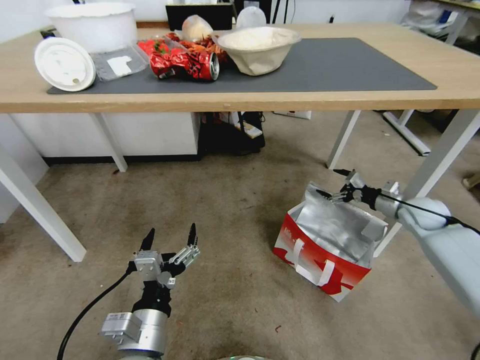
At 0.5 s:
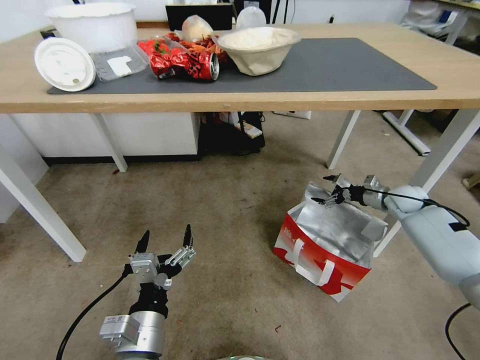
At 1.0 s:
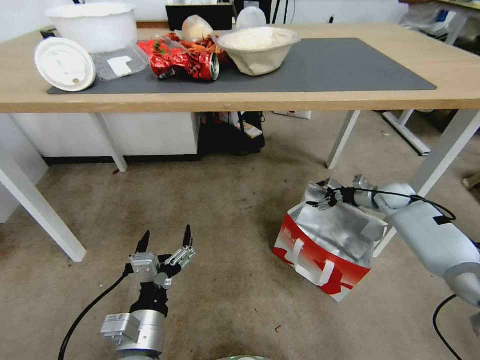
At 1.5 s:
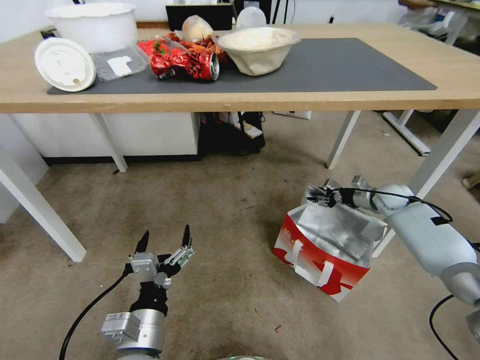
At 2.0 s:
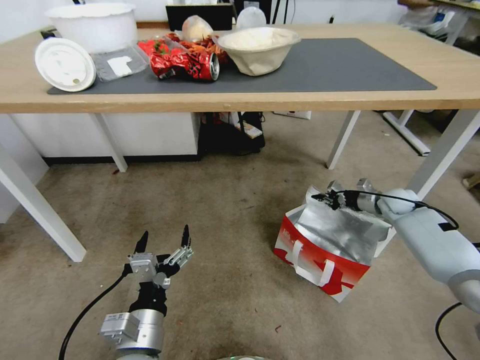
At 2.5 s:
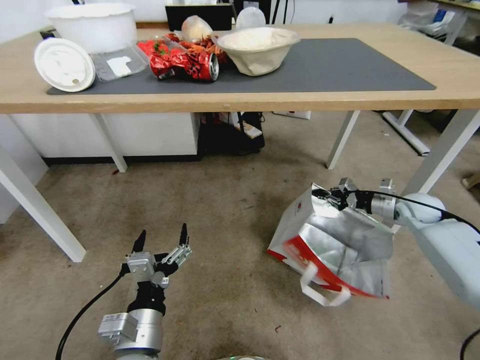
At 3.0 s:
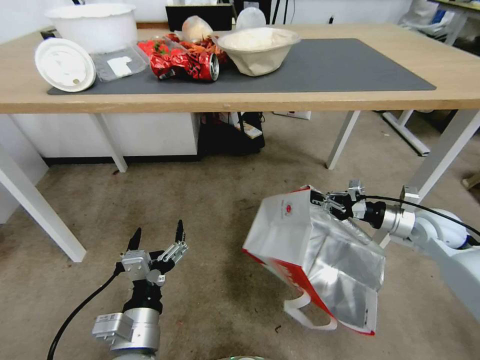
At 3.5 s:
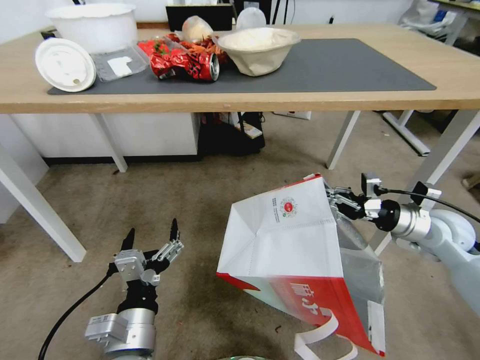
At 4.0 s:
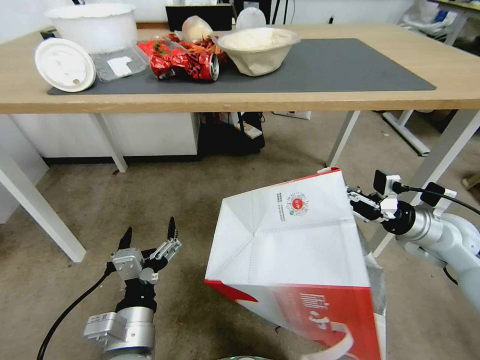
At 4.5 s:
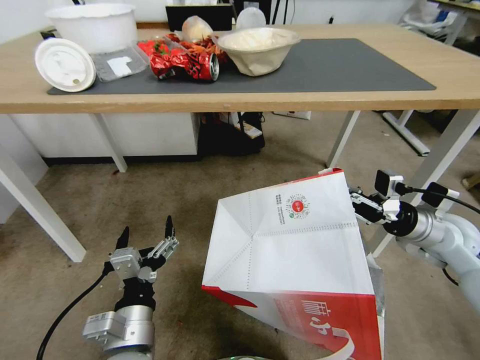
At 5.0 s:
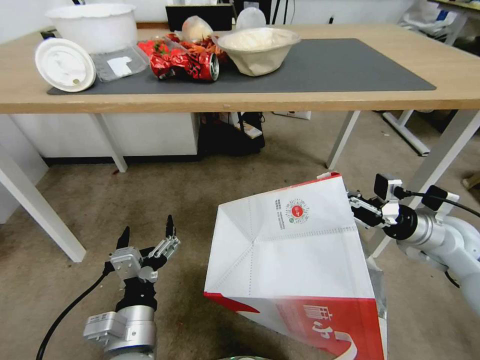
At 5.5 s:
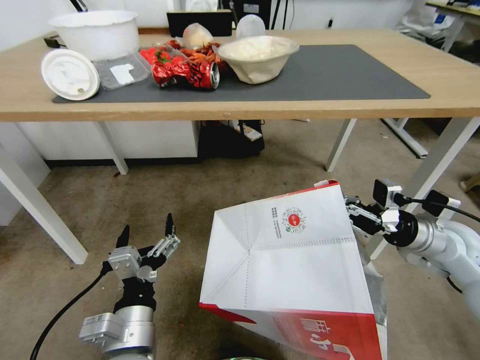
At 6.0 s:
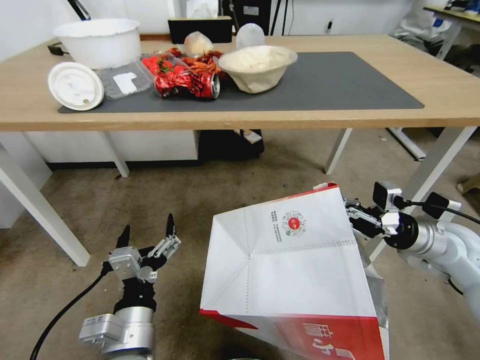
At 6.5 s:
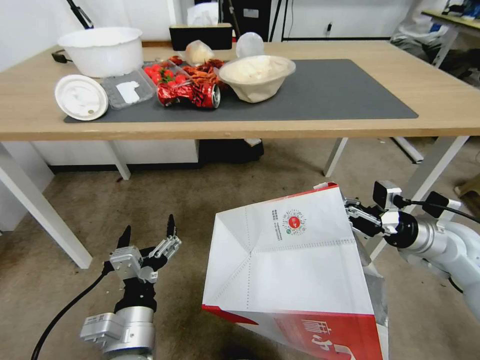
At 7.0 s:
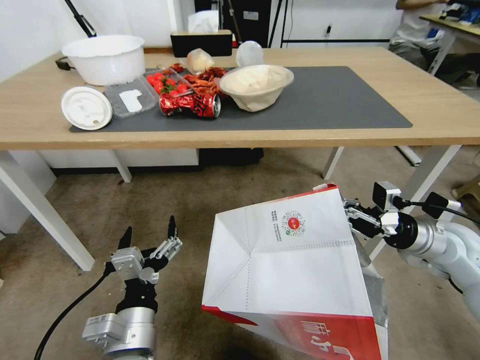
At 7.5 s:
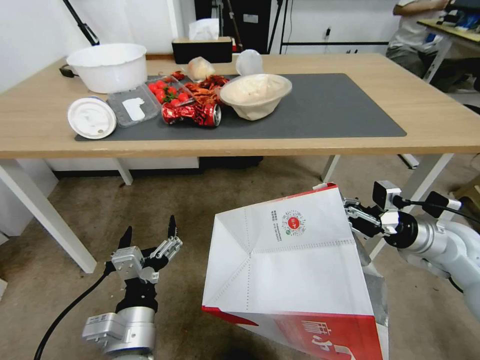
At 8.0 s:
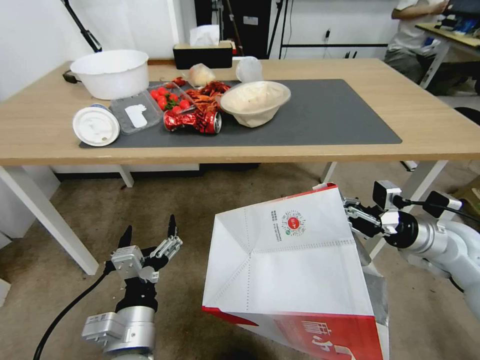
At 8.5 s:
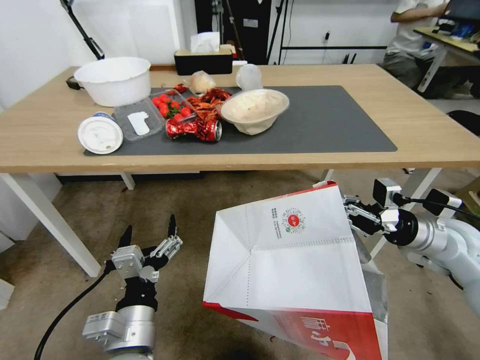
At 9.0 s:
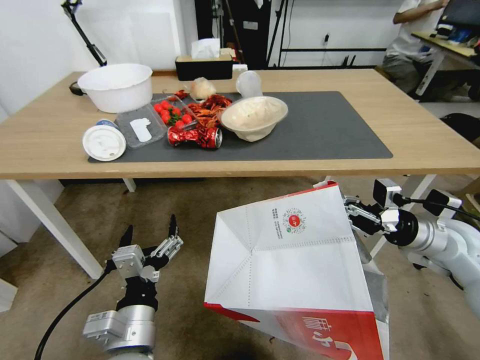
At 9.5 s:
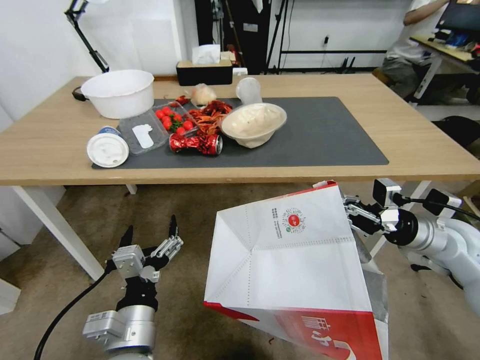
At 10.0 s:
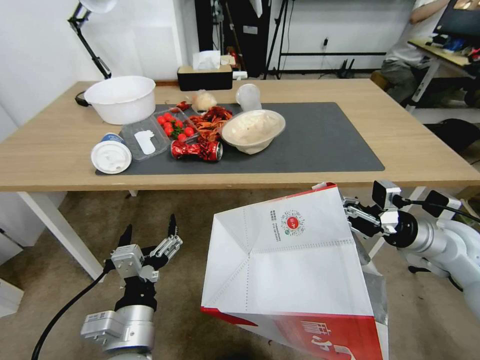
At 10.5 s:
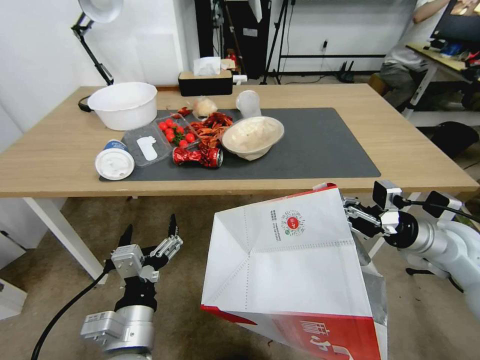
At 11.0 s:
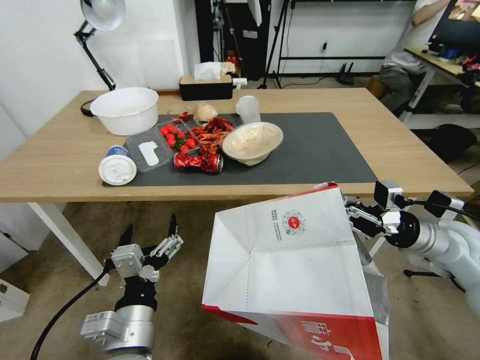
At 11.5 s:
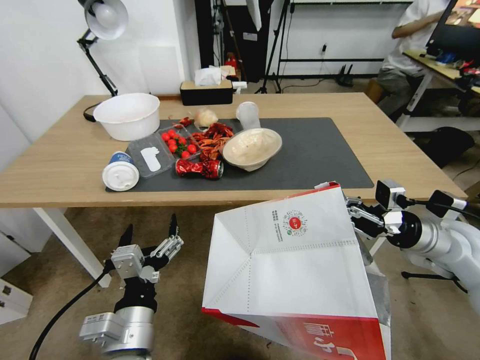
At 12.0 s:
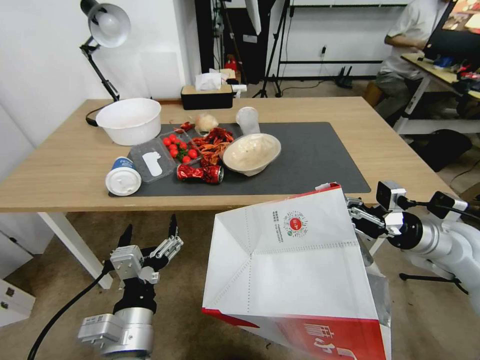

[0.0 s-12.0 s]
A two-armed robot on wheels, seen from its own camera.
Task of the whole recording: Pick up the food delivery bag from the floor and place it on the table.
0.0 to 2.0 s: The right gripper heads forward, covering about 5 cm, and closes up.
2.0 to 4.0 s: The right gripper is displaced backward and upward by roughly 20 cm.

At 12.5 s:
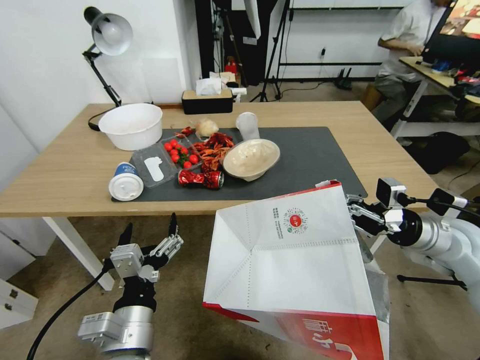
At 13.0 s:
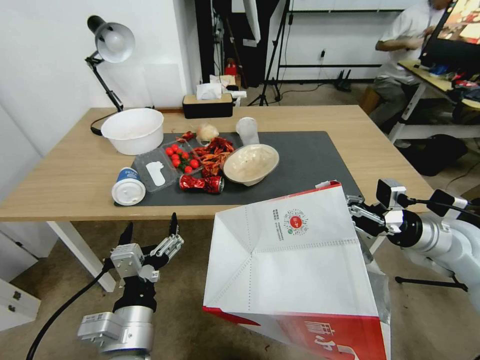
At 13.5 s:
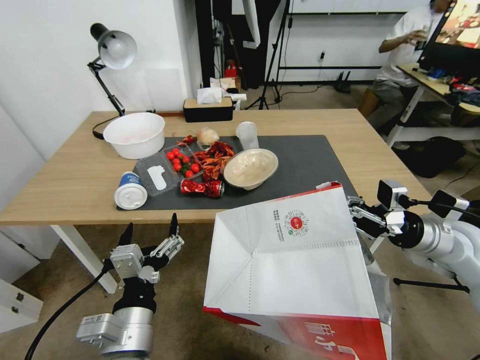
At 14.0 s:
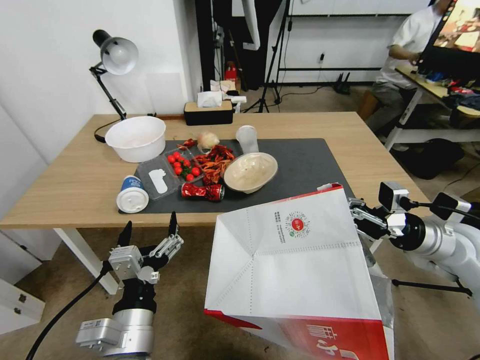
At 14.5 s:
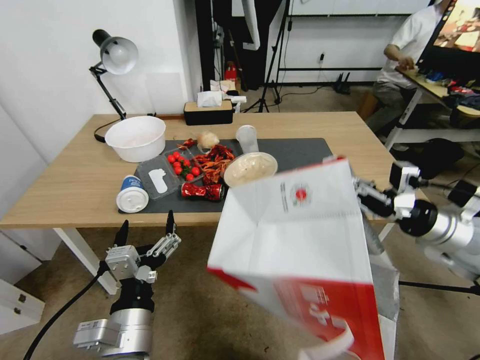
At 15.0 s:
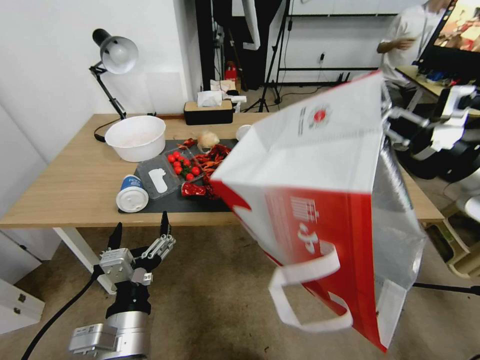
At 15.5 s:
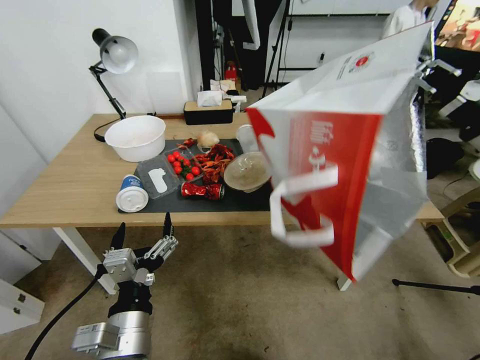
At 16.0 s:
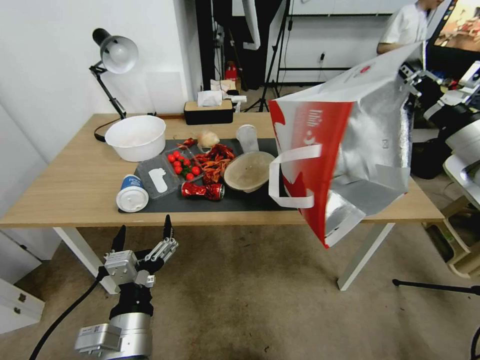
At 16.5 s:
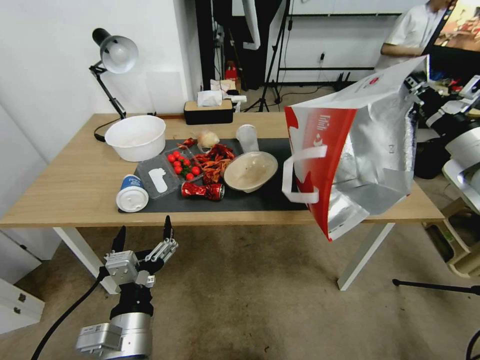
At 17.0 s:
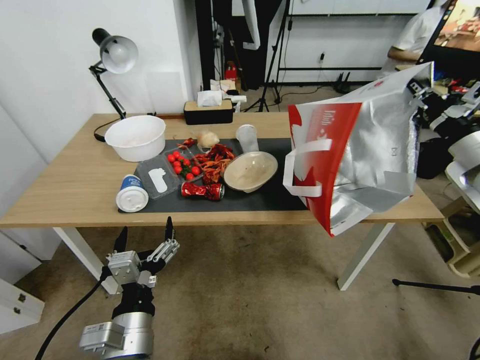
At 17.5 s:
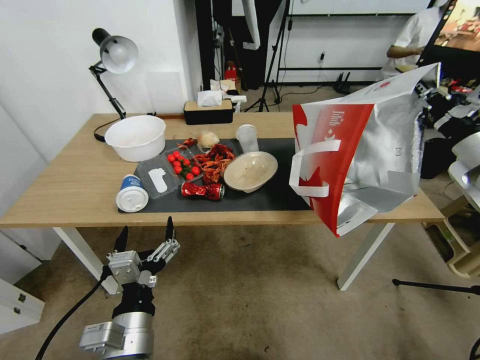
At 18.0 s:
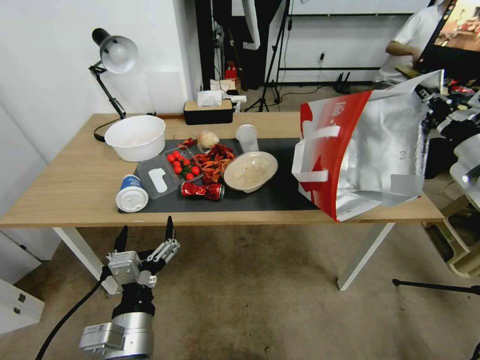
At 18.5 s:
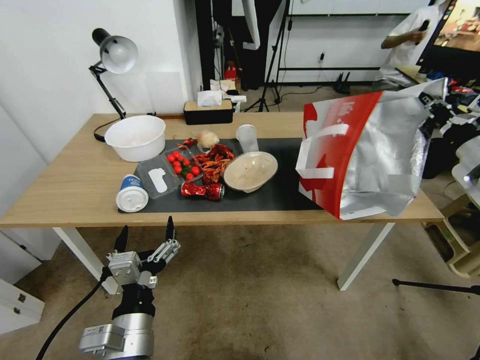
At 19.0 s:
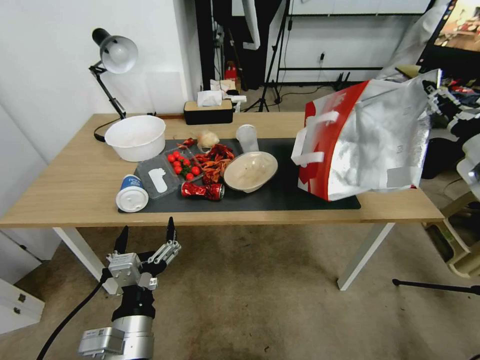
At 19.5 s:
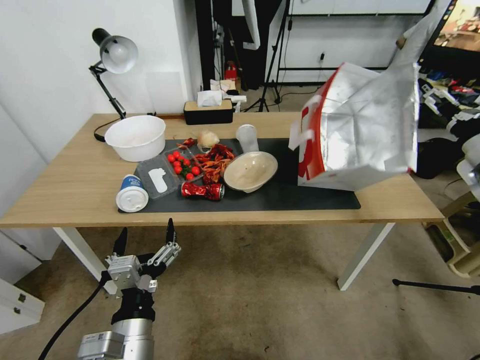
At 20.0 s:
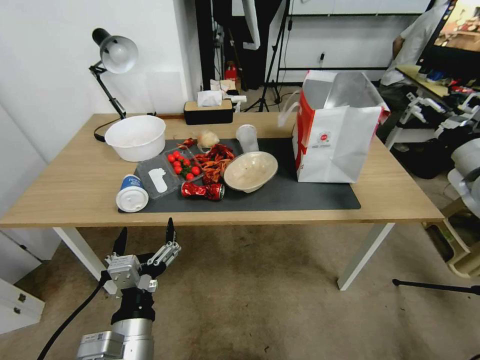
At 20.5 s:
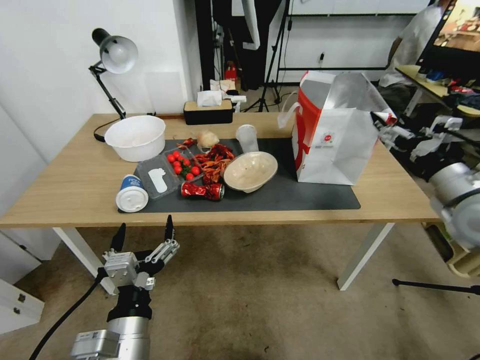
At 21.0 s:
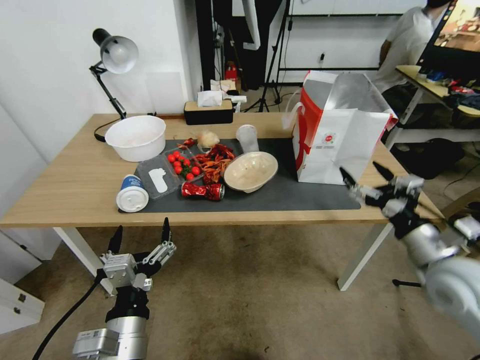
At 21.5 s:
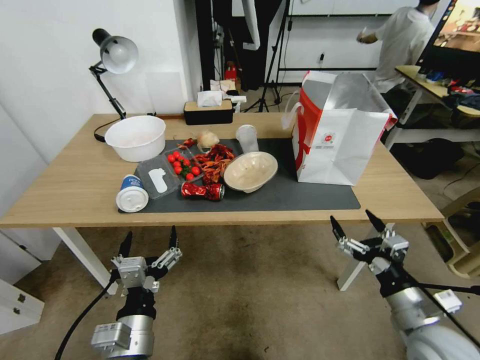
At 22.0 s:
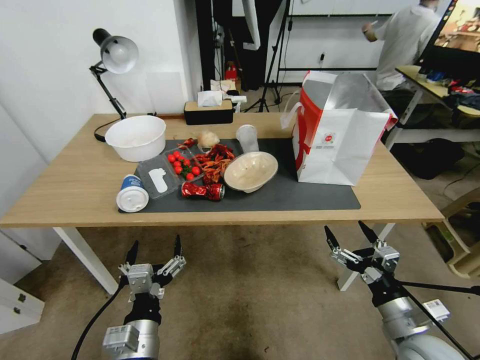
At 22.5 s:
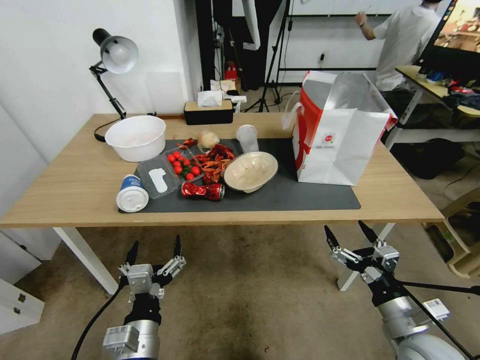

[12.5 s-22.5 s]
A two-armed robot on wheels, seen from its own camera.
Task of the whole recording: Pick up the food delivery bag from the floor and place it on the table.
14.5 to 16.5 s: The right gripper travels upward and forward by about 10 cm.
16.5 to 18.5 s: The grippers make only small movements.
18.5 to 20.5 s: The right gripper travels to the left by some 5 cm, and opens.
20.5 to 22.5 s: The right gripper shifts roughly 25 cm downward, backward and to the left. The left gripper travels downward by about 5 cm.
